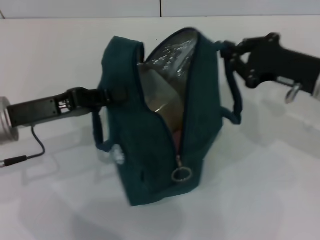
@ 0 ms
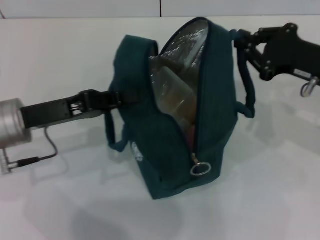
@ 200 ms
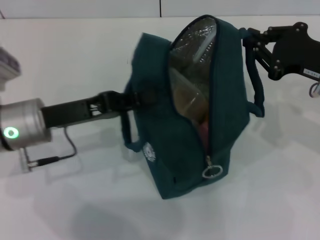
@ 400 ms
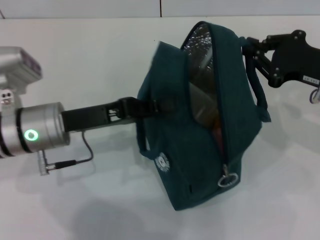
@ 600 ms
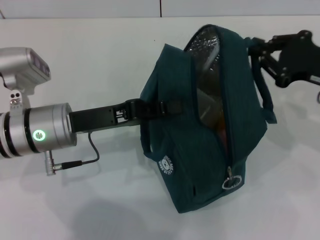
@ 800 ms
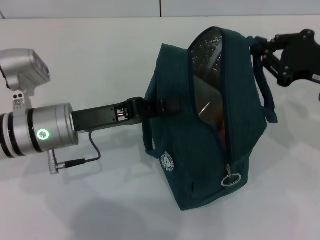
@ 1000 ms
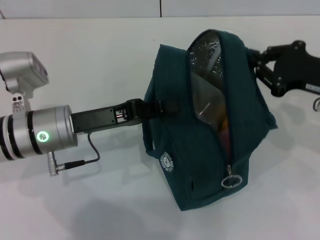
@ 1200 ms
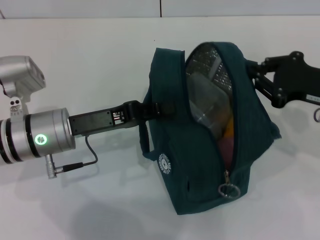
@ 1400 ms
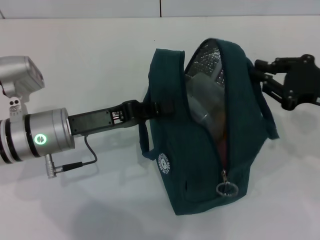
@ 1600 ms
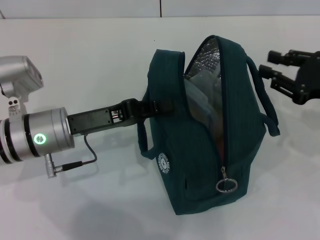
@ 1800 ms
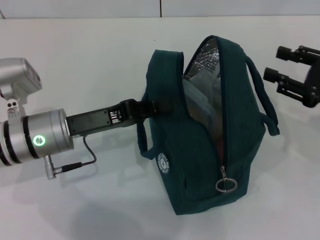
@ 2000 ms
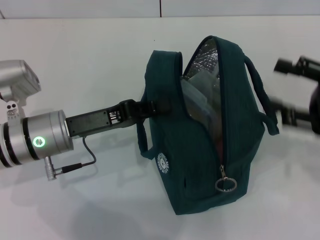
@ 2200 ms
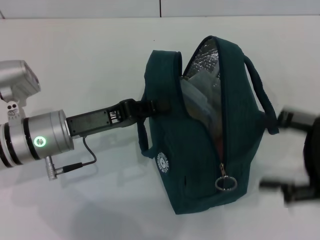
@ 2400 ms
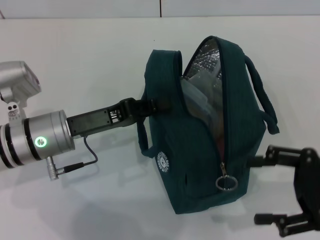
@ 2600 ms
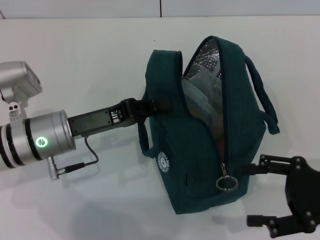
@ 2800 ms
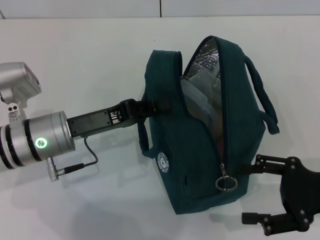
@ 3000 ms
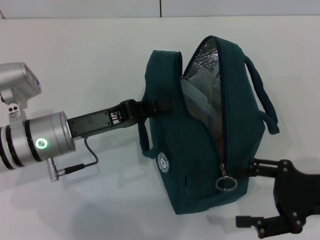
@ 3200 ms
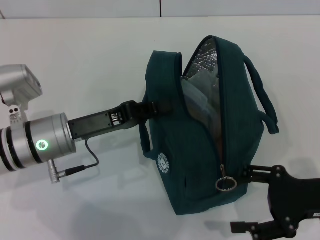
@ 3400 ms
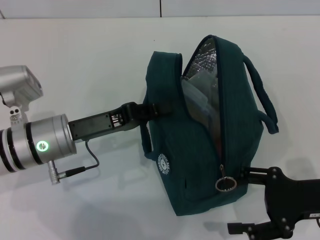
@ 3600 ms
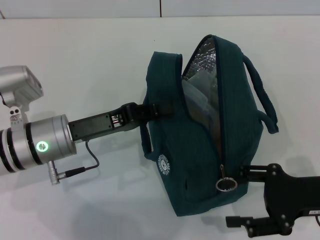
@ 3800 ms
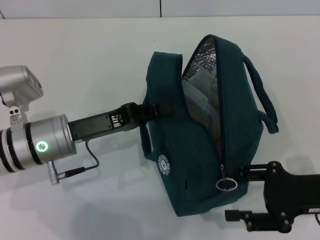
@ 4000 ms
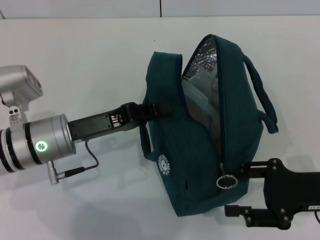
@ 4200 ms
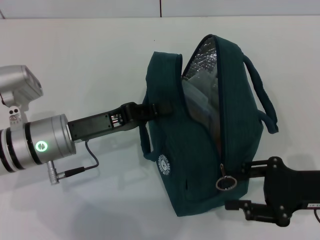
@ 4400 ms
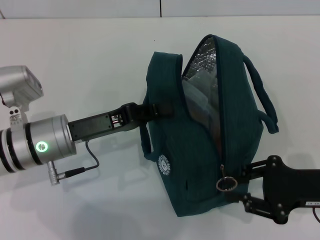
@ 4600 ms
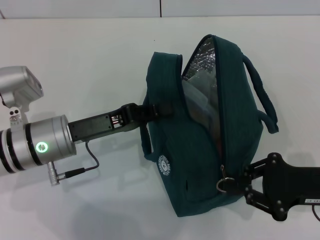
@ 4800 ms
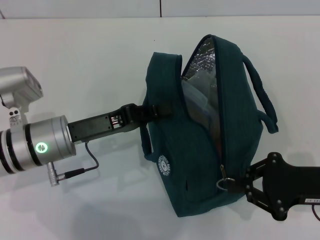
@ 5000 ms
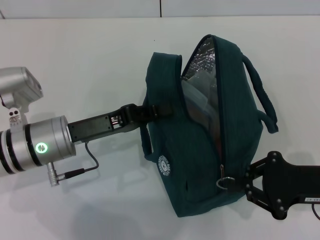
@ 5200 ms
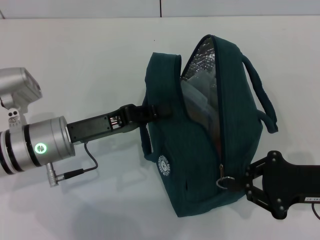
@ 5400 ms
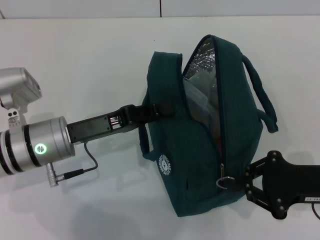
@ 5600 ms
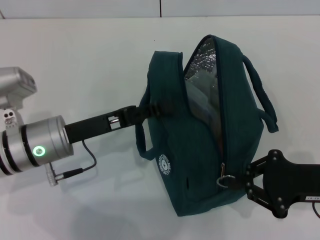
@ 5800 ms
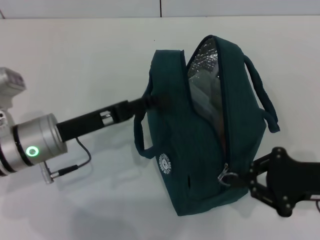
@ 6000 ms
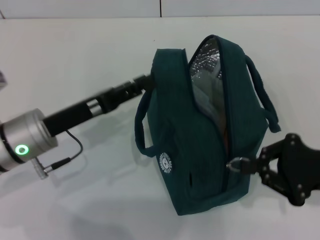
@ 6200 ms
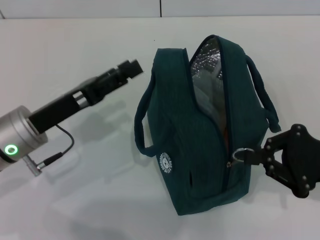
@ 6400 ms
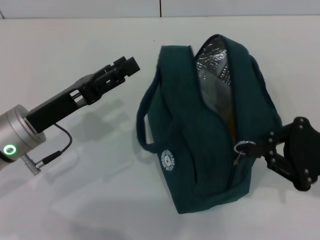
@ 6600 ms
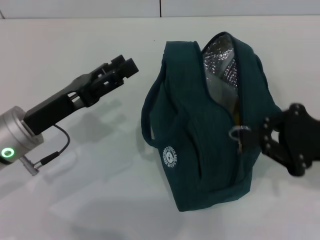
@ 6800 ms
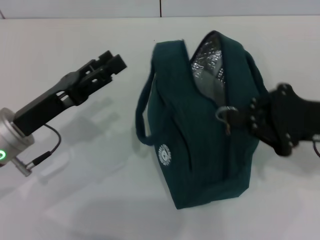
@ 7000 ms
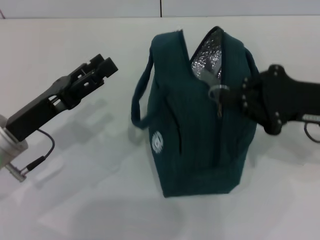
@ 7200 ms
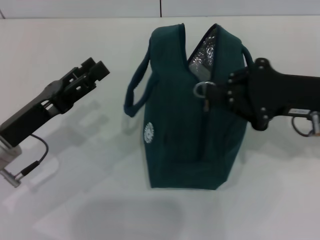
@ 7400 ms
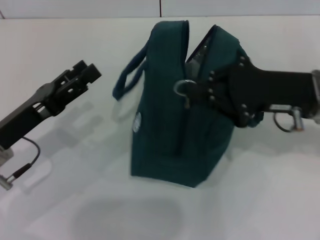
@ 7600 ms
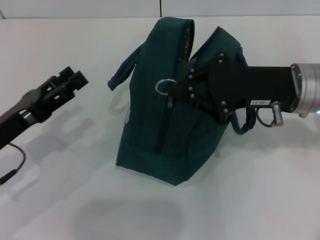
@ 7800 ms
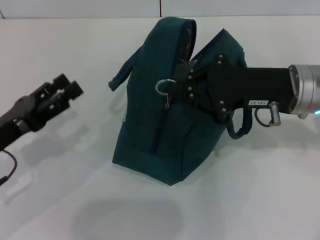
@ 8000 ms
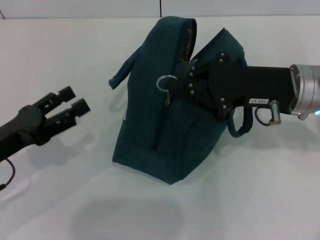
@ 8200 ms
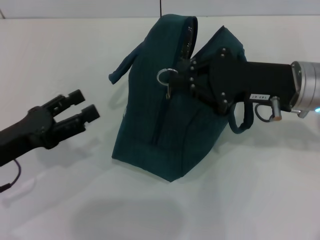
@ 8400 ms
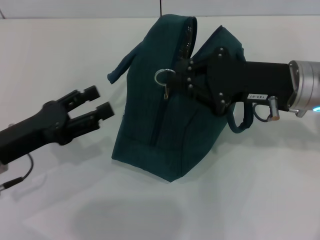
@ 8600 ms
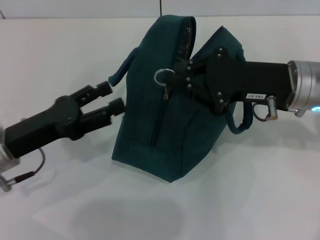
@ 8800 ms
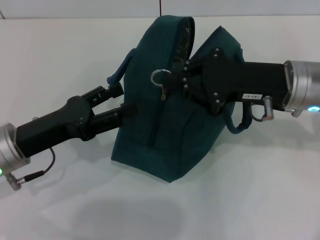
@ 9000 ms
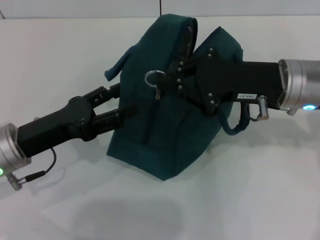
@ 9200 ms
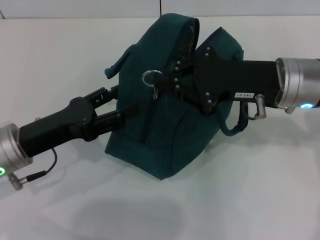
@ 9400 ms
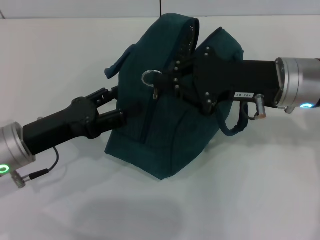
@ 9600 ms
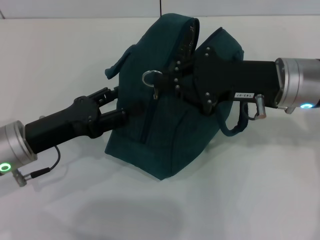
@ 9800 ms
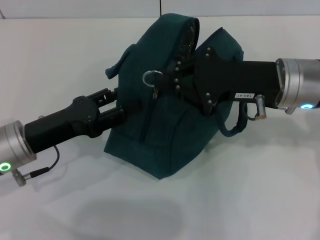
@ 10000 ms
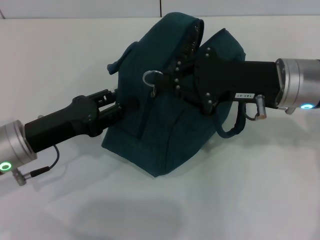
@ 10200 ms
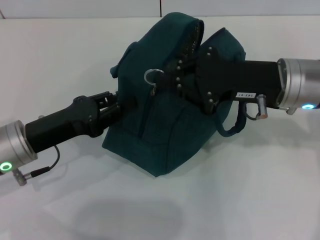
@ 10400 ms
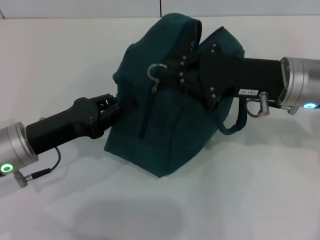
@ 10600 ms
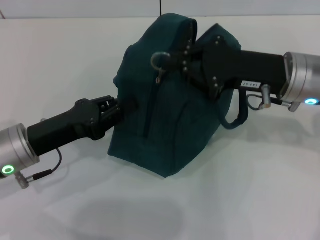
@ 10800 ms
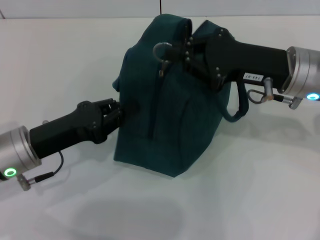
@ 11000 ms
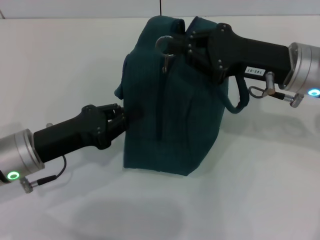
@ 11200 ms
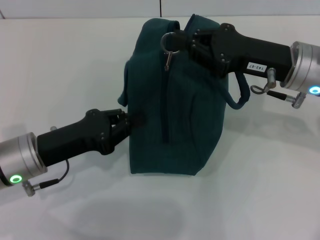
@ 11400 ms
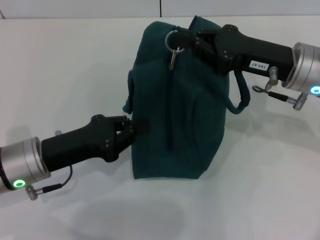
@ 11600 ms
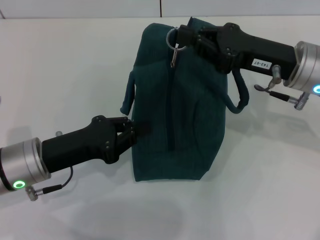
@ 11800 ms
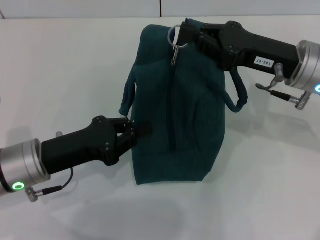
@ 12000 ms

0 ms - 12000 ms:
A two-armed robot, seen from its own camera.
Step, 2000 ms - 6000 ms: Hold the lunch bag with your left hand.
0 ms - 1600 ms: The right gripper changes place by approximately 5 cm. Meanwhile the left gripper heads to the right, covering roughly 5 cm.
1600 ms - 3000 ms: The right gripper heads backward, covering roughly 10 cm, and opens up.
3000 ms - 4400 ms: The grippers make only small movements.
4400 ms - 6000 ms: The right gripper closes, while the left gripper opens its fingers.
6000 ms - 7600 ms: The left gripper goes about 5 cm to the left, and opens. The right gripper heads forward, upward and to the left, covering some 15 cm.
9000 ms - 10400 ms: The left gripper closes up.
10400 ms - 12000 ms: The left gripper closes.

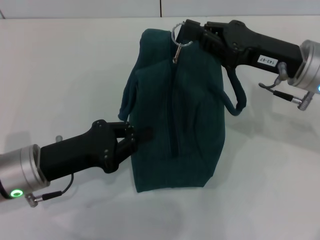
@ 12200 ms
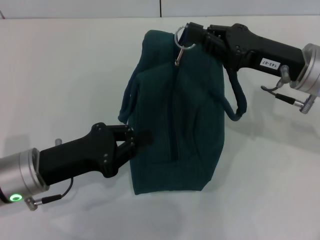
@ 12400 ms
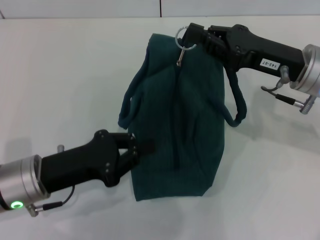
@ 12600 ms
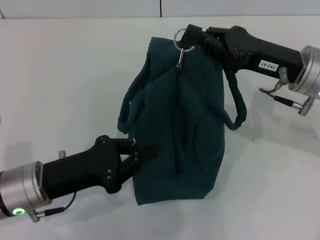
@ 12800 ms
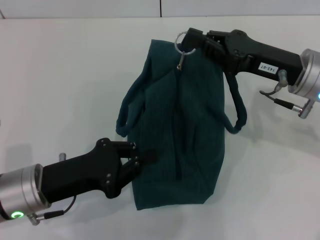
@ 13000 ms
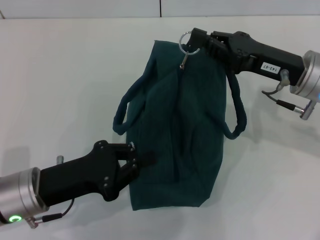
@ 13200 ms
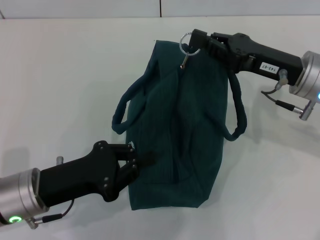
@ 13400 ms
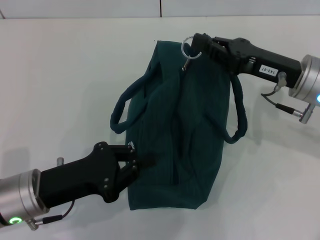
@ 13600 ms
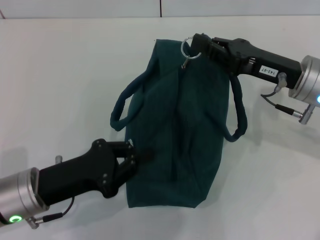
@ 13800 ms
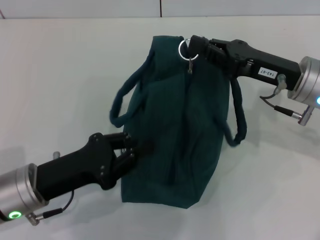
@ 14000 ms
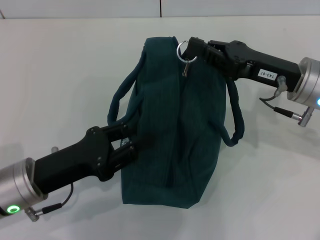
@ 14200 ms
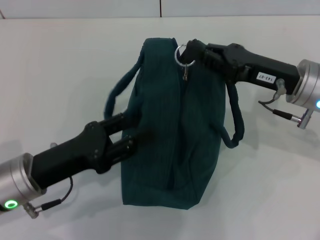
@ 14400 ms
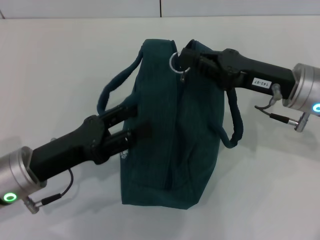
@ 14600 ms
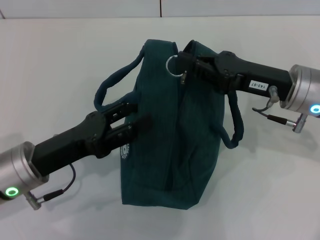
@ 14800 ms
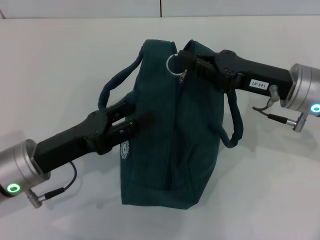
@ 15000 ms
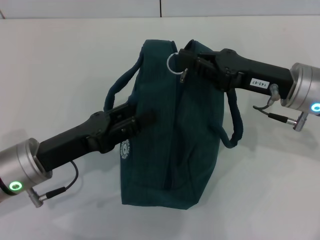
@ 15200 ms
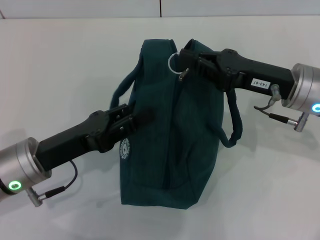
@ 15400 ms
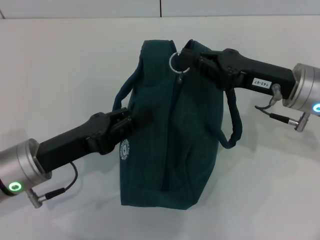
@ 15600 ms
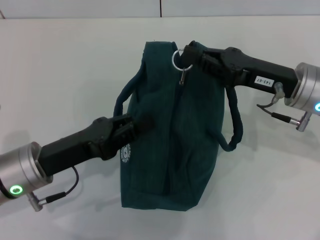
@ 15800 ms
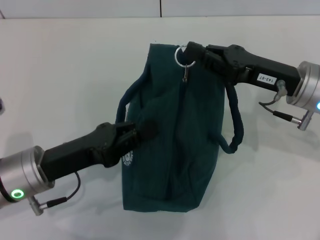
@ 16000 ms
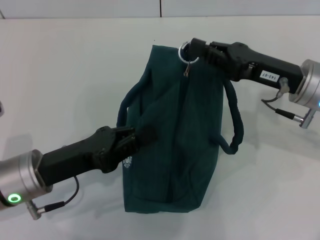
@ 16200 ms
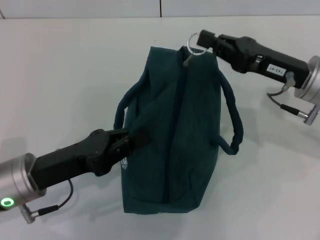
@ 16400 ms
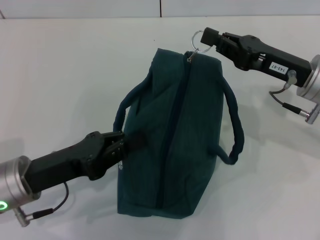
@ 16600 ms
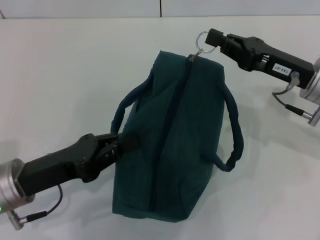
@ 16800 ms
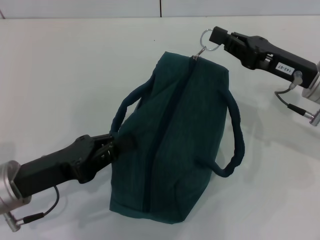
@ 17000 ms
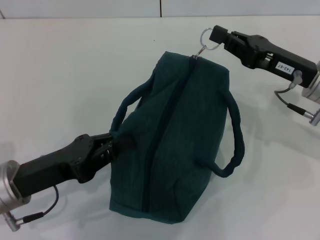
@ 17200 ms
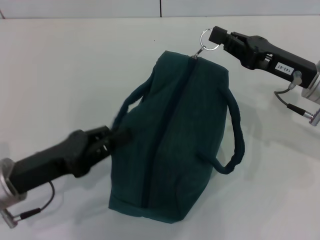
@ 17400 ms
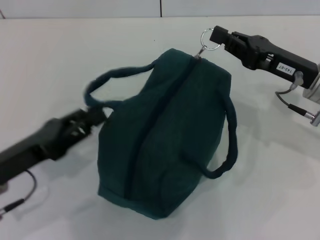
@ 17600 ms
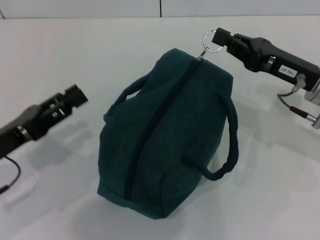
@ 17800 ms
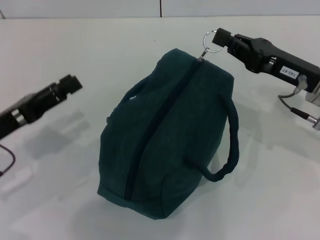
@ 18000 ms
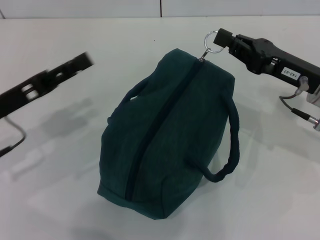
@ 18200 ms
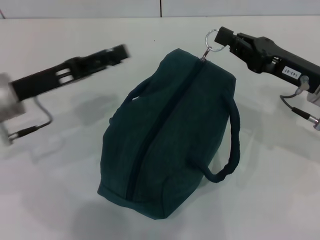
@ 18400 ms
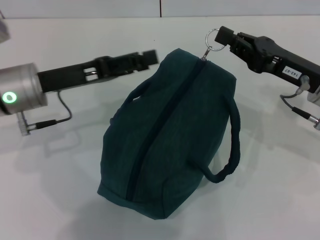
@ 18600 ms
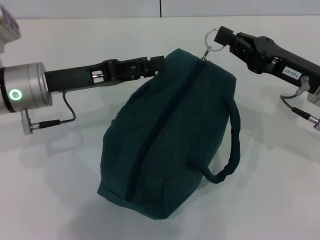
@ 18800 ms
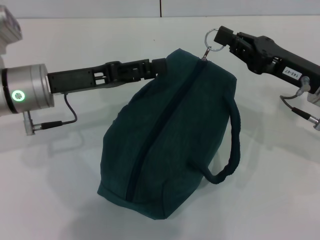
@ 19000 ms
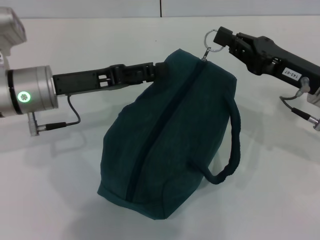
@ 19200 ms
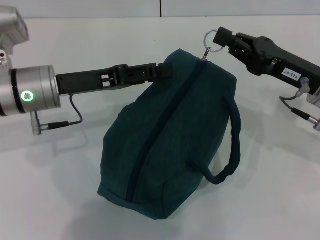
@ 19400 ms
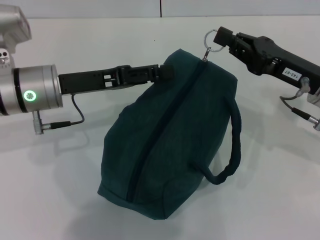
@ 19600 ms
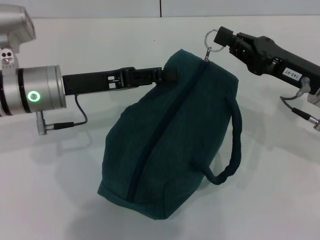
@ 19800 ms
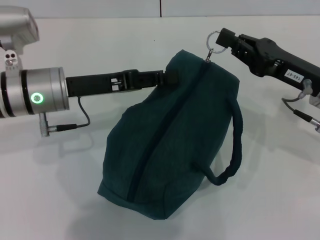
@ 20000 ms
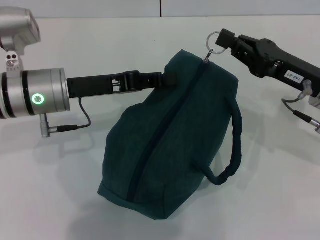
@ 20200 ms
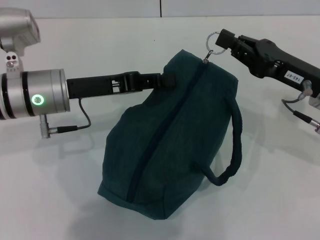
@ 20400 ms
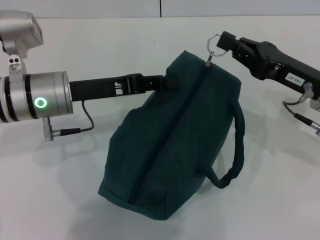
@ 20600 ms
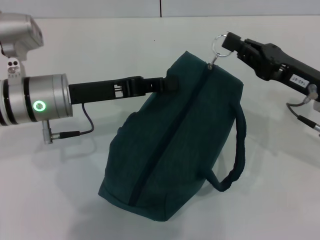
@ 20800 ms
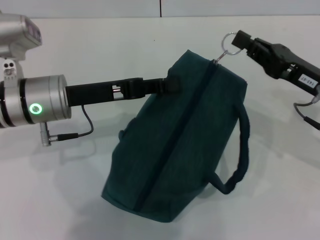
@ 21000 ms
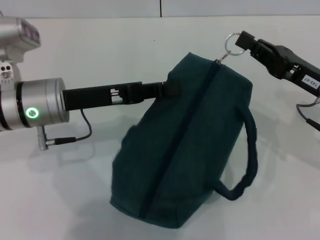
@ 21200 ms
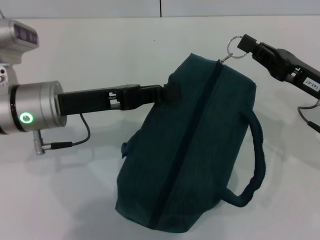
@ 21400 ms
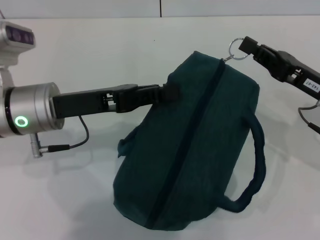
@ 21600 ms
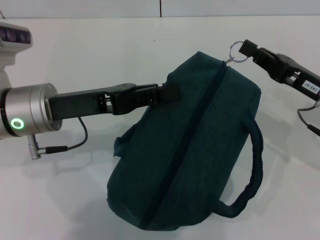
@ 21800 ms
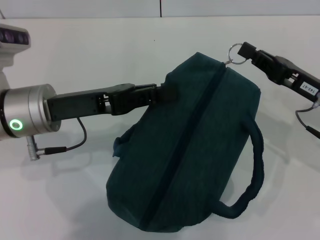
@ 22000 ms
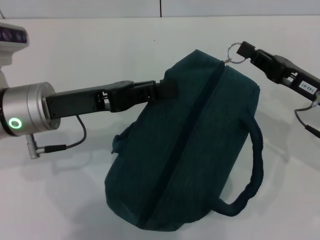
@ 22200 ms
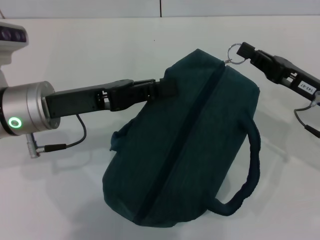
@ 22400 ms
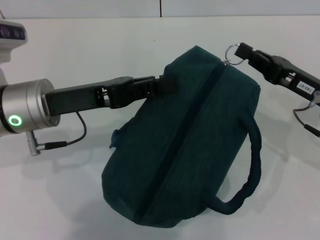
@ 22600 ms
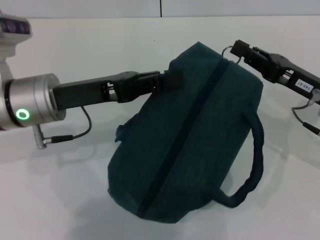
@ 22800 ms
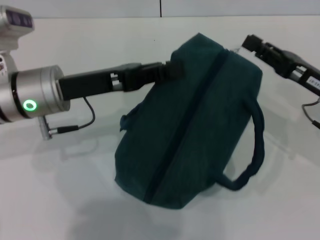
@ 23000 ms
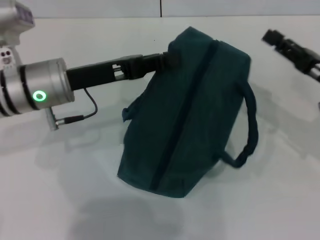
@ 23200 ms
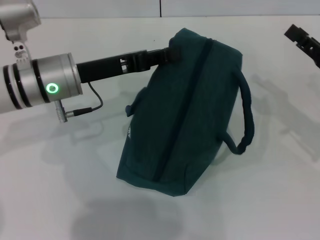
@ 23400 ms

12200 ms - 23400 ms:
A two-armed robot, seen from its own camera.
Step, 12200 ms - 22800 ms: Zip up the lunch bag with your right hand.
15400 ms - 17000 ms: The left gripper closes its fingers.
17000 ms - 18600 ms: The left gripper heads forward and upward, covering roughly 15 cm, and opens.
18600 ms - 20200 ms: The left gripper closes.
21800 ms - 23400 ms: The right gripper opens up. The left gripper ends up approximately 5 cm from where it was.
